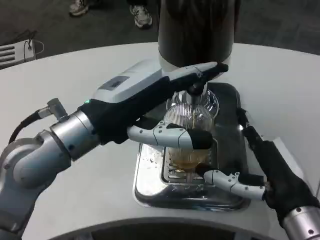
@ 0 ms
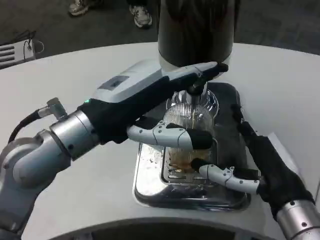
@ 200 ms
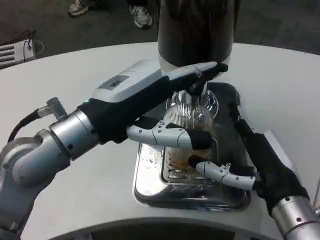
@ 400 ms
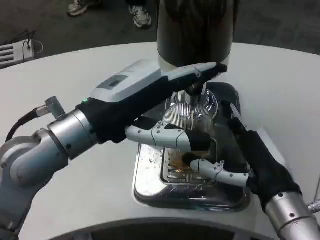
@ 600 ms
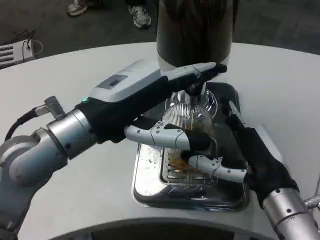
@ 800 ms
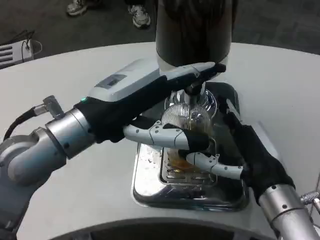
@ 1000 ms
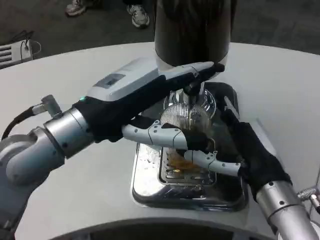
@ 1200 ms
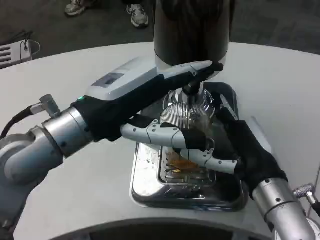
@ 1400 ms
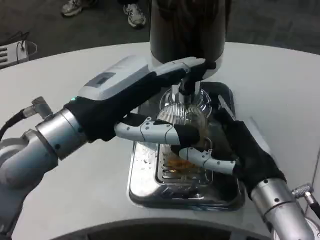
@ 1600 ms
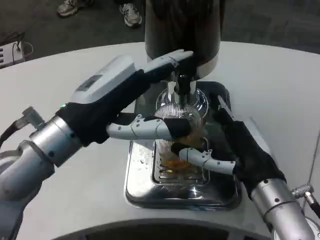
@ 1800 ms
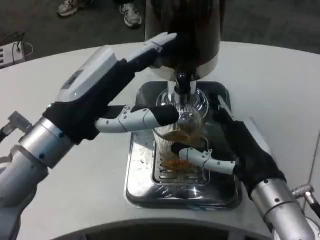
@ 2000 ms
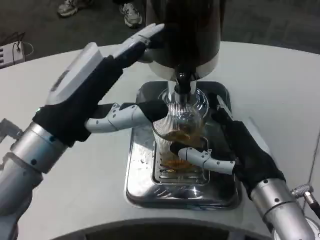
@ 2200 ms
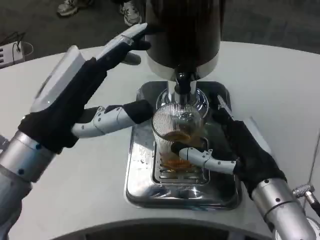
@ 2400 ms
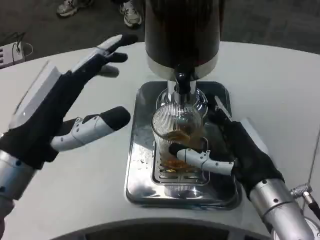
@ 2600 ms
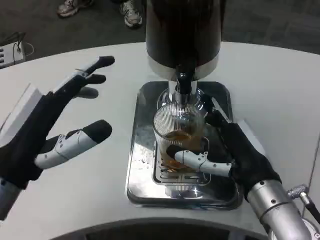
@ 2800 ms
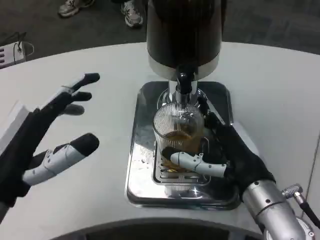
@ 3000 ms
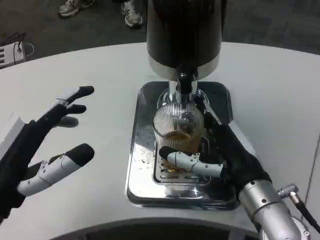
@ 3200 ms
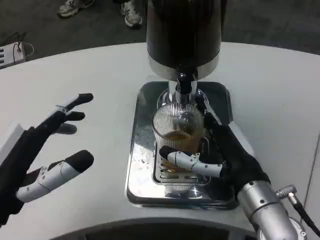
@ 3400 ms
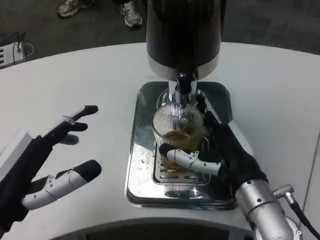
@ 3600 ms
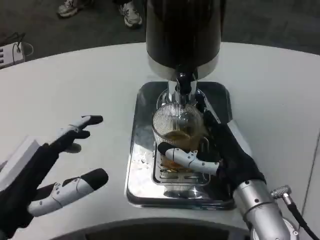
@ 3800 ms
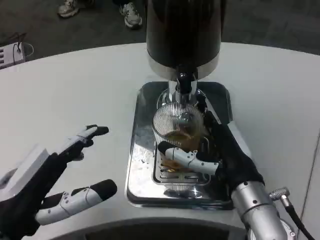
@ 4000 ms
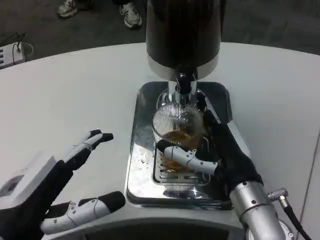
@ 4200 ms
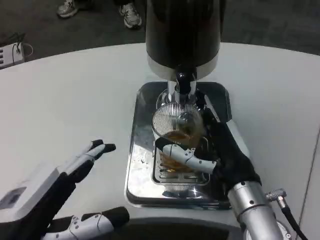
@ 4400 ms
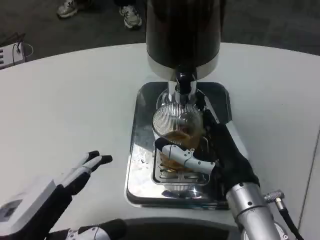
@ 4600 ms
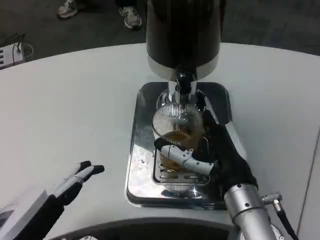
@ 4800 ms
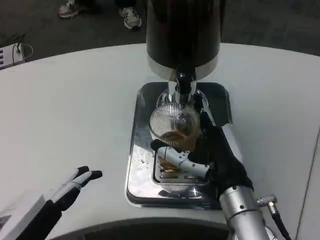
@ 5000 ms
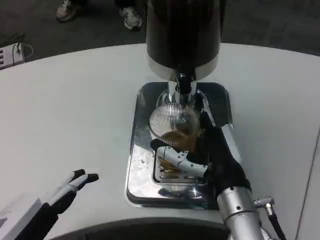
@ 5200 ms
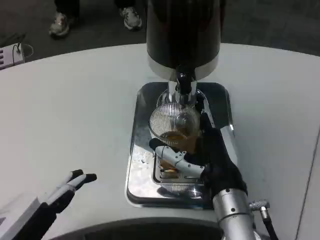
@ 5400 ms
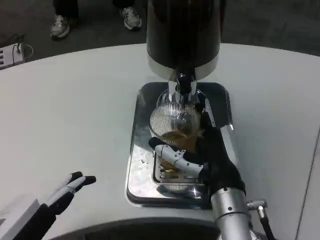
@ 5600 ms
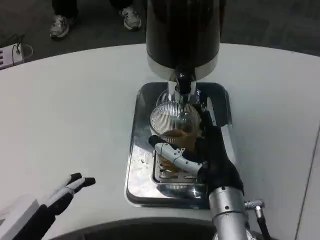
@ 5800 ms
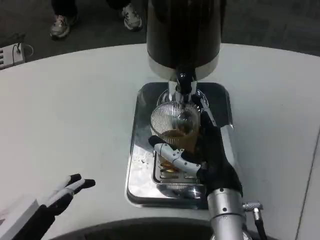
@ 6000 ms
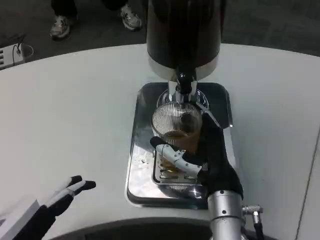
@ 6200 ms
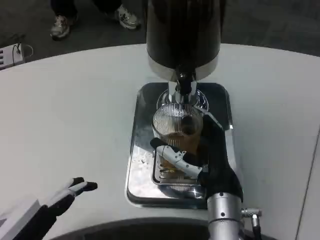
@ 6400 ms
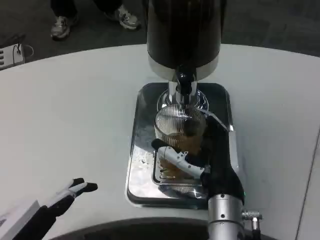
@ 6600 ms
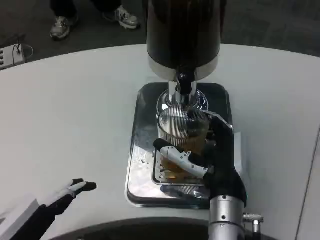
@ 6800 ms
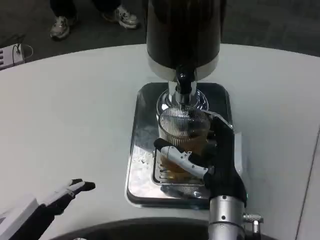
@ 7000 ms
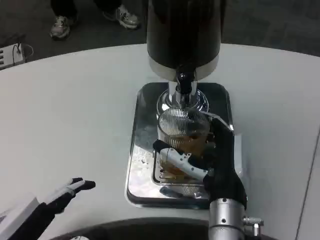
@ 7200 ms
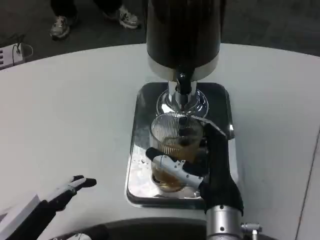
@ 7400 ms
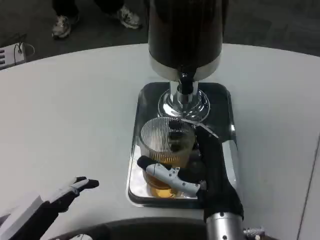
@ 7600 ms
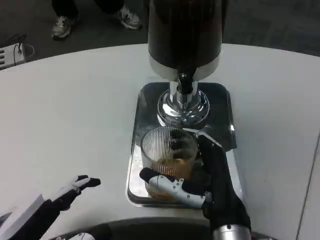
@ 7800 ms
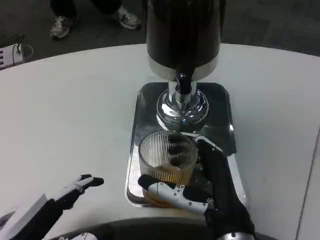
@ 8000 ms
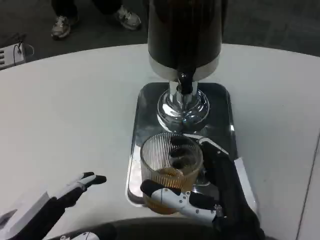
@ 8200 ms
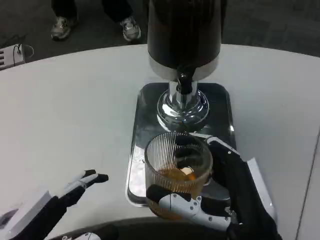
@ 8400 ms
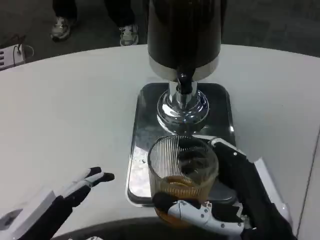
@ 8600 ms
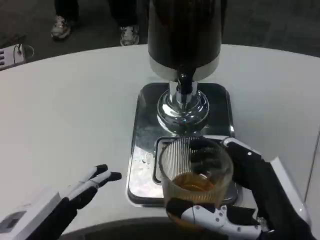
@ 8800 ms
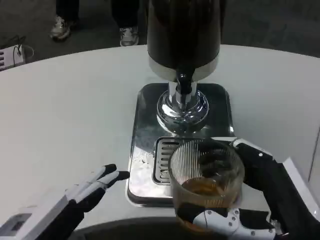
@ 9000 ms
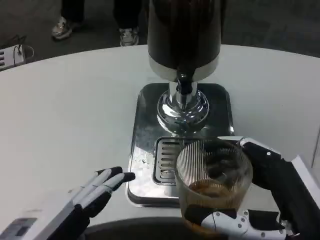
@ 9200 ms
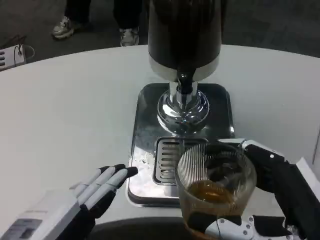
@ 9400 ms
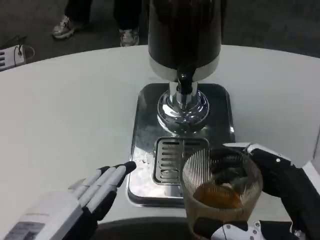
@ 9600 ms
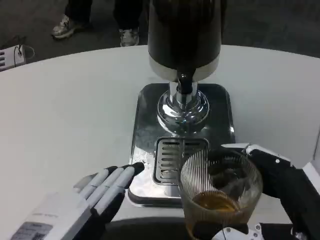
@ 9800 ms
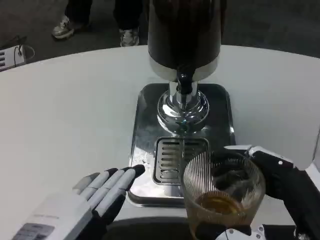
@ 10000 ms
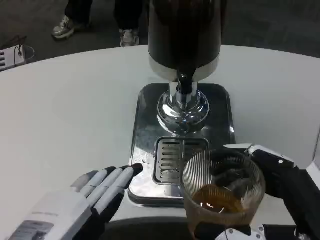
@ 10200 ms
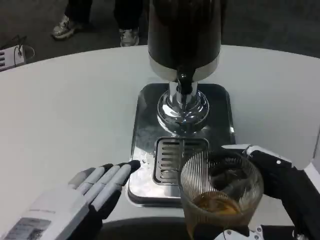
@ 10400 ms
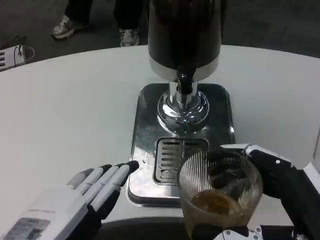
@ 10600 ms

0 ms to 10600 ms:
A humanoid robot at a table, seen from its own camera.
Task of the whole recording: Grasp the cup under the faucet to collect the drink, then remove the cup.
1600 ms to 3000 ms: The left hand heads downward, backward and to the left, covering some 10 cm.
3000 ms to 4600 ms: The left hand shifts approximately 5 cm backward.
4600 ms to 6000 ms: The hands make only small movements.
6000 ms to 7600 ms: There are only small adjustments of the hands.
7600 ms to 9000 ms: The right hand goes approximately 15 cm backward and to the right.
9000 ms to 10600 ms: The hands stay close to where they were, moving slightly.

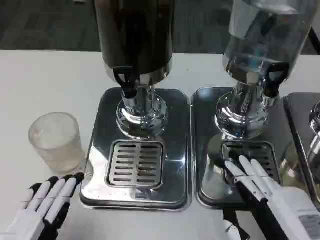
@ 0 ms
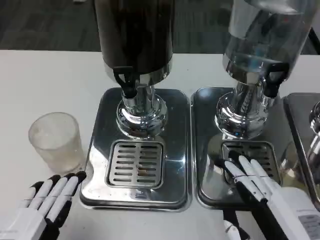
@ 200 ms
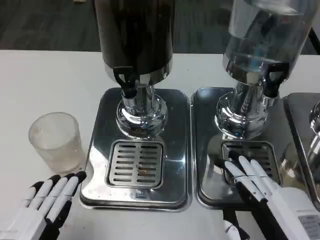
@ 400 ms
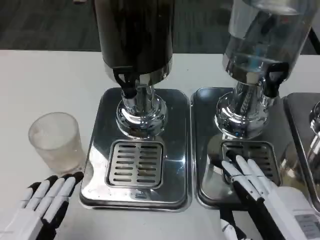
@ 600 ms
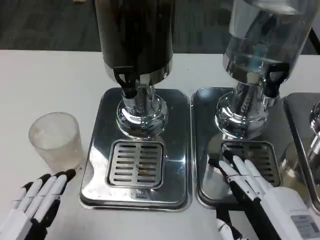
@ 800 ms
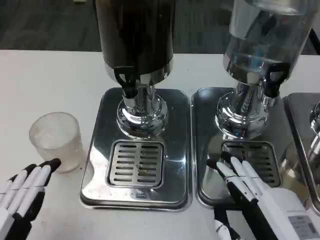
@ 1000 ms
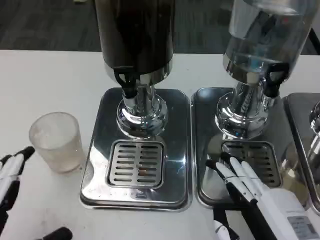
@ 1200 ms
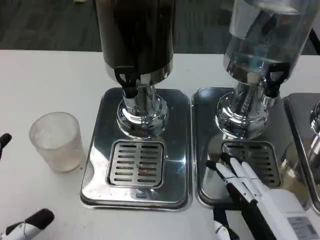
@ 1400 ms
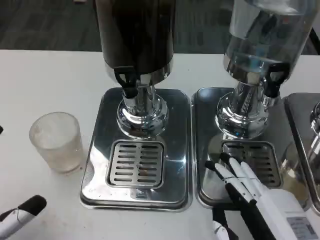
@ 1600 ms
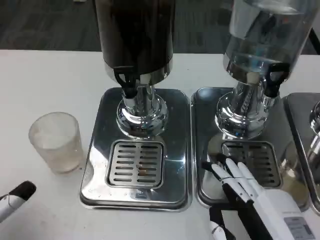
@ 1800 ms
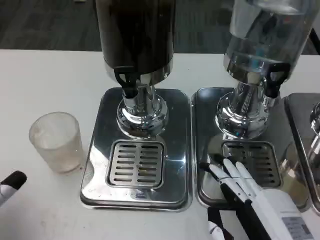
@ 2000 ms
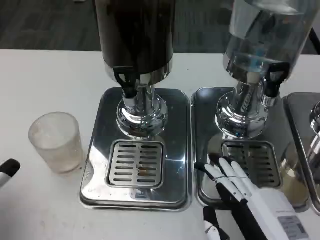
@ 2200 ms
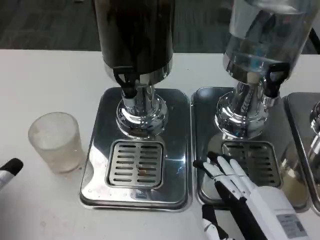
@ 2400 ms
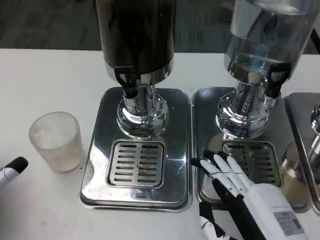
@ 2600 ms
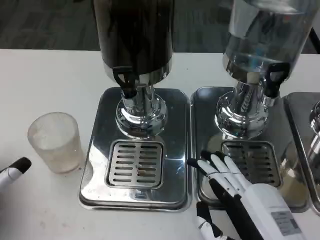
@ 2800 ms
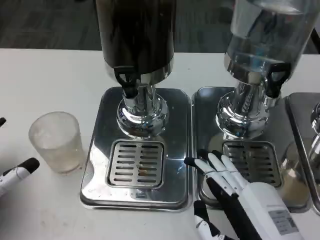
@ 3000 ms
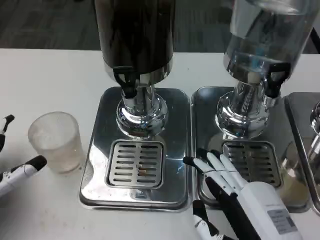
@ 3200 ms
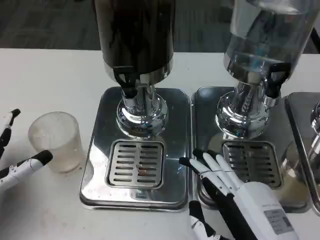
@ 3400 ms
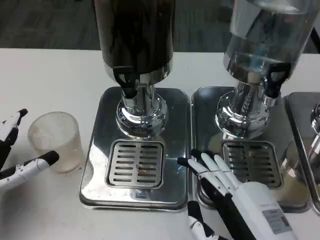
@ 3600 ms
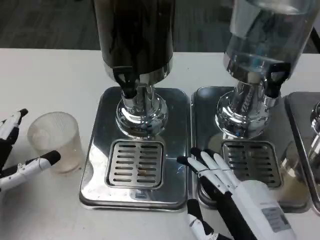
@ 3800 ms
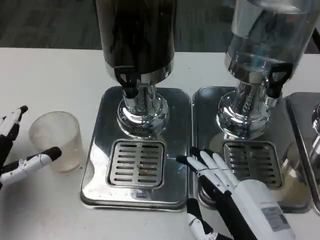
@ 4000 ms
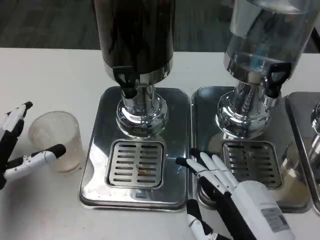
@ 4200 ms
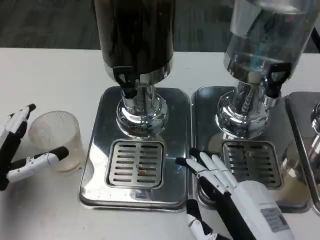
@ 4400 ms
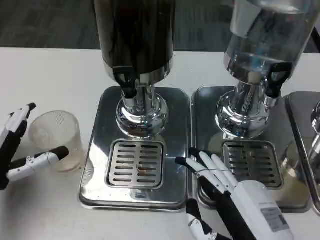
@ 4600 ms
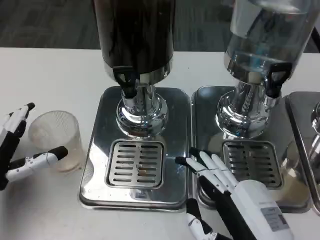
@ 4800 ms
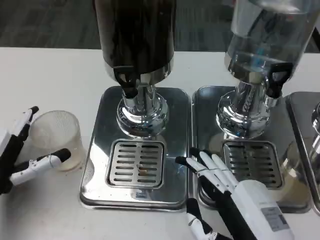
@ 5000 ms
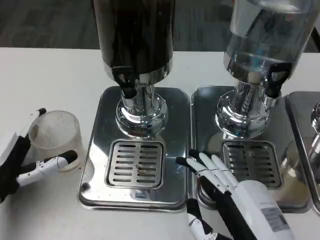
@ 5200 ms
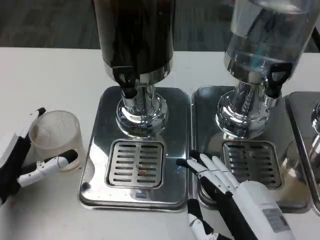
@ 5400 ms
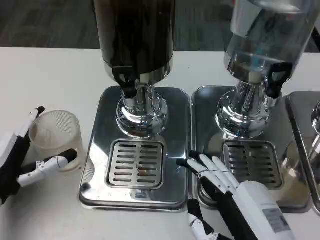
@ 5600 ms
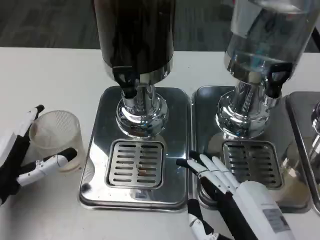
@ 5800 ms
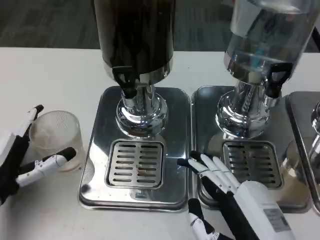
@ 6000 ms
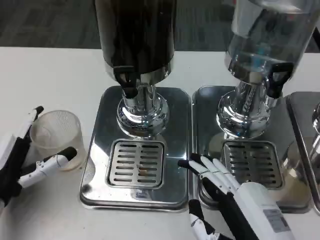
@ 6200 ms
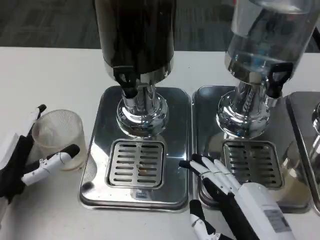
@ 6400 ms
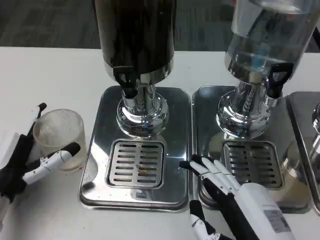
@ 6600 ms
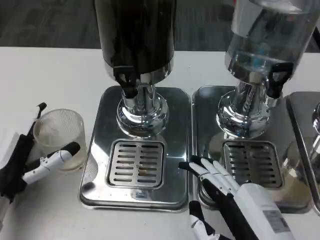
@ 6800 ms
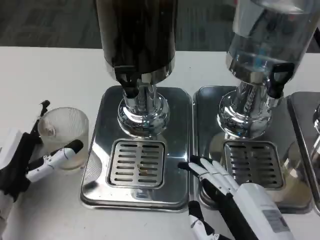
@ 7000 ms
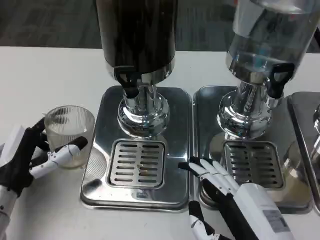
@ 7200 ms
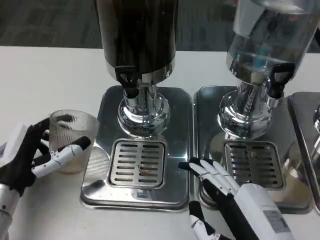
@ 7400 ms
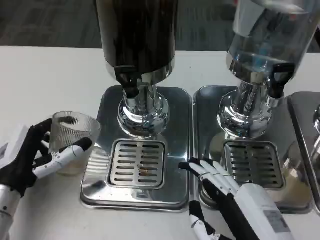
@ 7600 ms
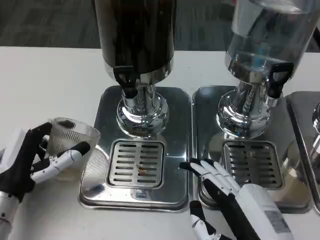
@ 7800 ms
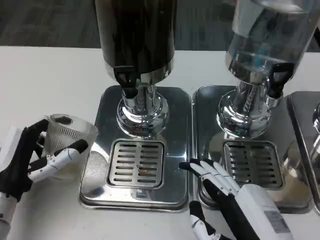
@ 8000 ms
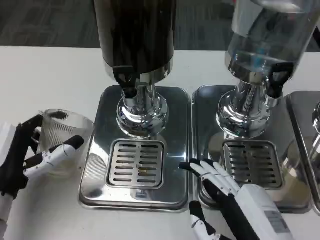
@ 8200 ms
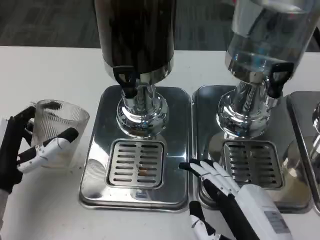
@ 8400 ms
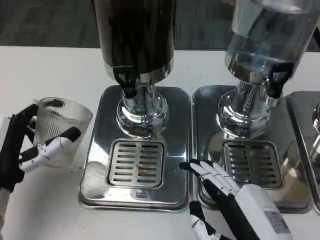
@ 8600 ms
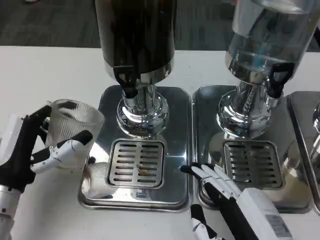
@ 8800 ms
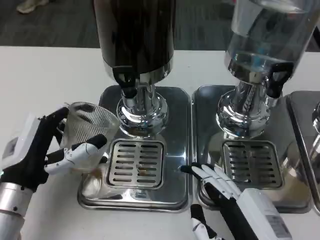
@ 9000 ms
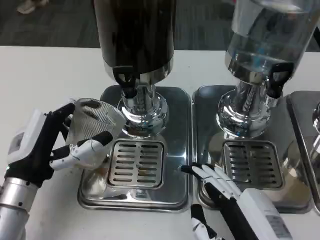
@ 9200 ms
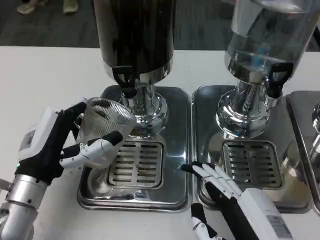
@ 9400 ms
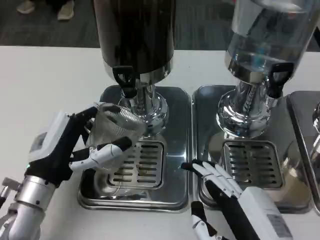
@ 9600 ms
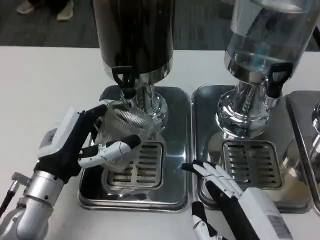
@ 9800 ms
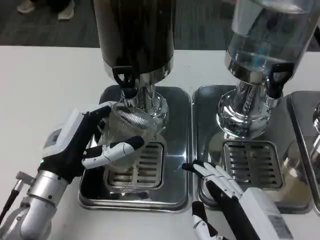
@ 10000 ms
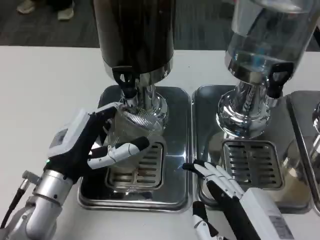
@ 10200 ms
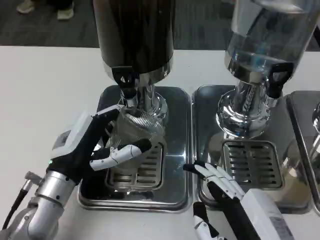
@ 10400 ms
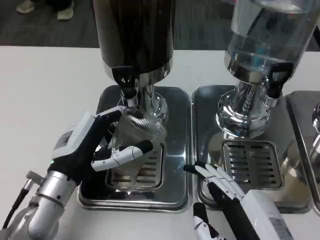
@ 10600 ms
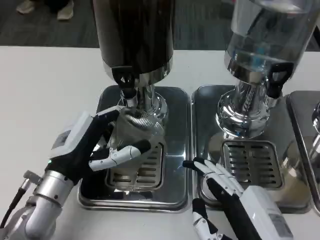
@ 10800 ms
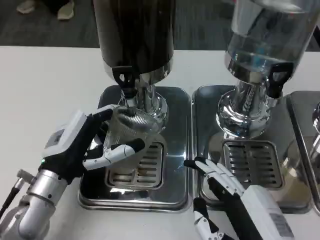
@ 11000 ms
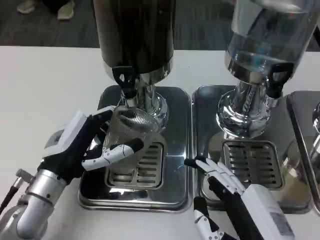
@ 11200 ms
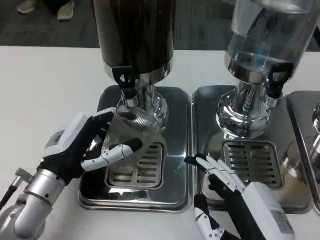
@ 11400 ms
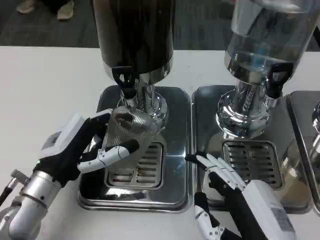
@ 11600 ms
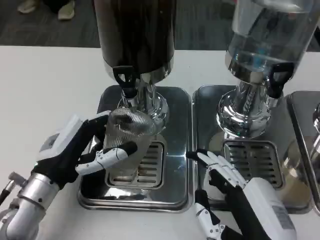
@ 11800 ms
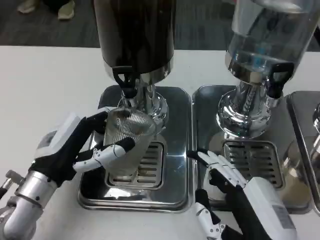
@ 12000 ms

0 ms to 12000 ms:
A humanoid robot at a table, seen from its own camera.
Task of the whole recording: Grasp the cup under the faucet to collect the drink, then remove the cup.
0 ms to 1600 ms: The left hand changes place by some 5 cm.
1600 ms to 3000 ms: The left hand goes approximately 10 cm forward.
3000 ms to 4400 ms: The left hand moves some 5 cm.
4400 ms to 6000 ms: The hands make only small movements.
9000 ms to 10400 ms: The left hand changes place by about 5 cm.
10400 ms to 12000 ms: The hands make only small movements.
